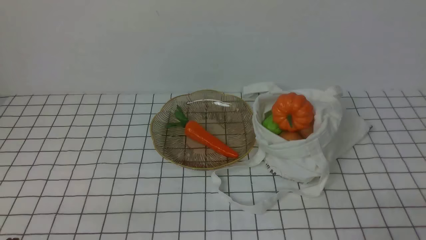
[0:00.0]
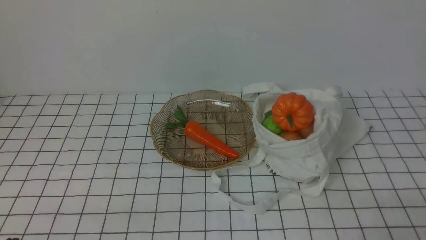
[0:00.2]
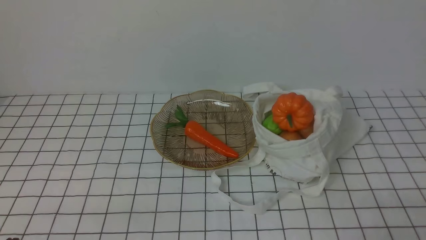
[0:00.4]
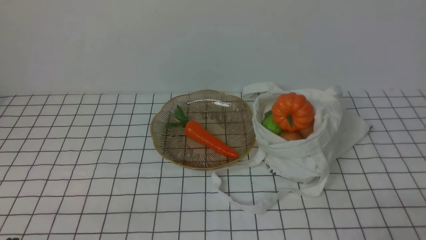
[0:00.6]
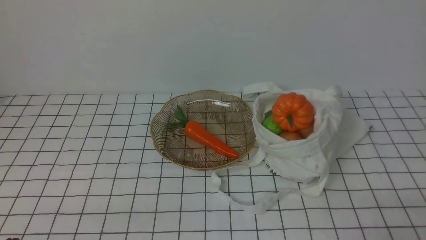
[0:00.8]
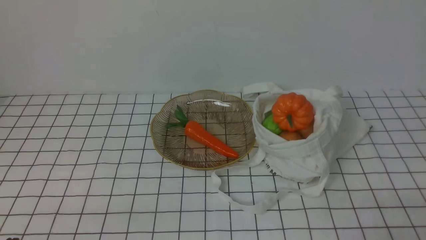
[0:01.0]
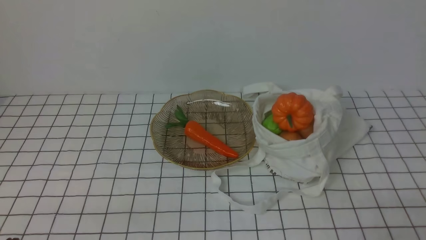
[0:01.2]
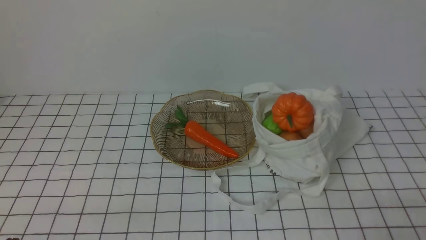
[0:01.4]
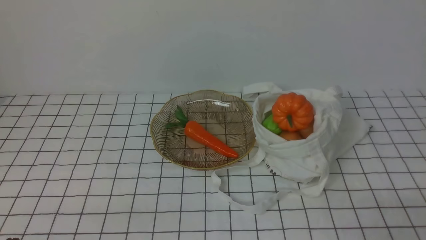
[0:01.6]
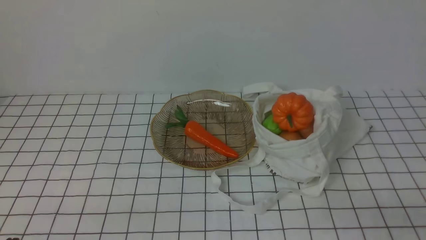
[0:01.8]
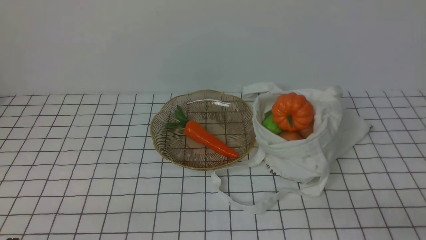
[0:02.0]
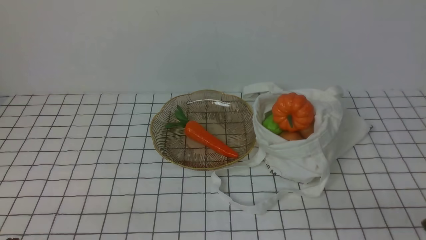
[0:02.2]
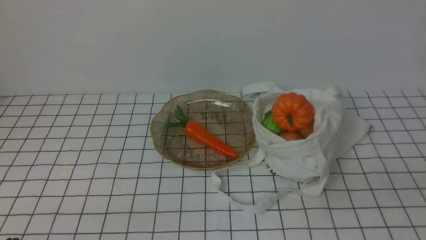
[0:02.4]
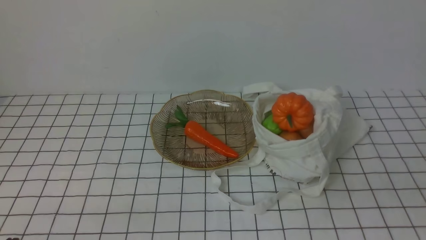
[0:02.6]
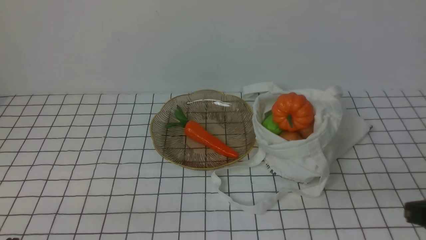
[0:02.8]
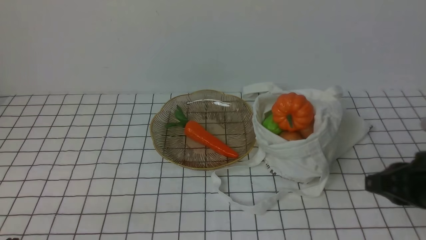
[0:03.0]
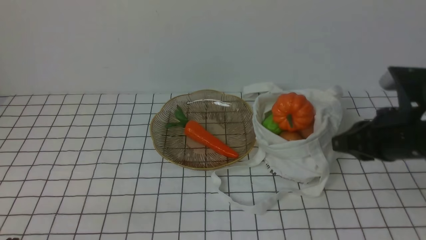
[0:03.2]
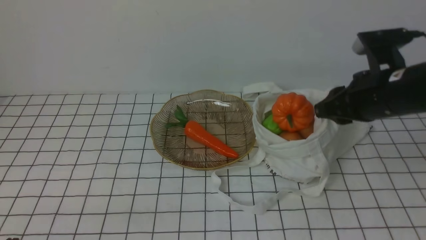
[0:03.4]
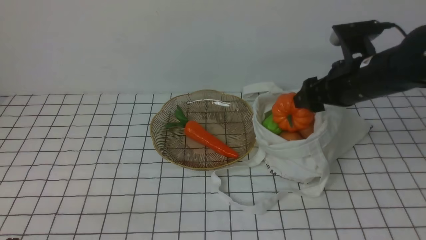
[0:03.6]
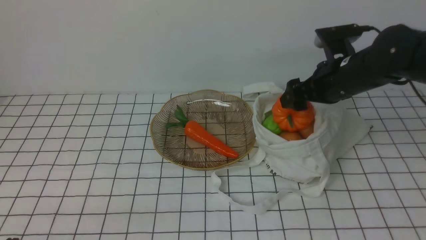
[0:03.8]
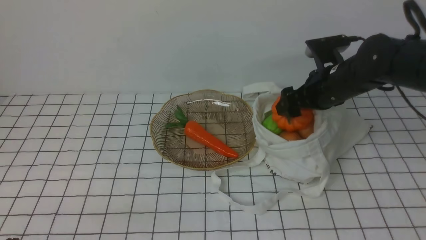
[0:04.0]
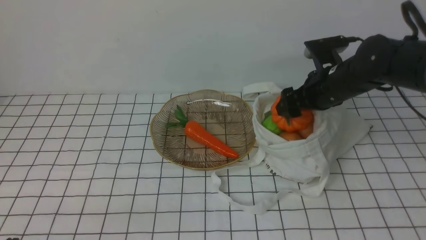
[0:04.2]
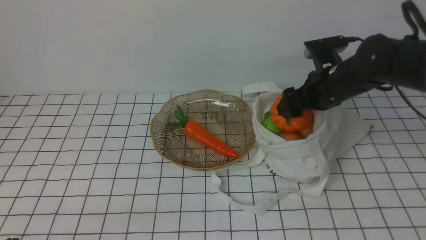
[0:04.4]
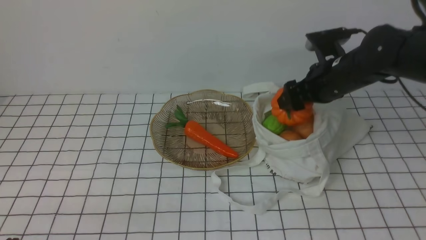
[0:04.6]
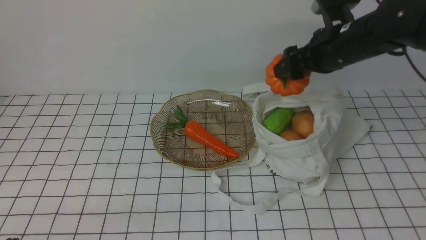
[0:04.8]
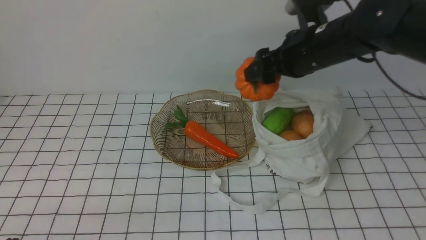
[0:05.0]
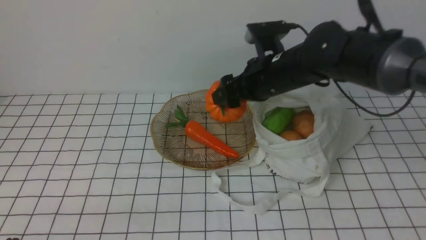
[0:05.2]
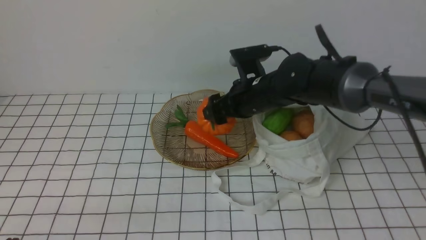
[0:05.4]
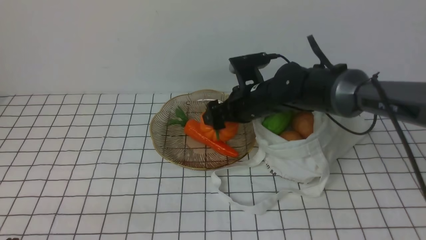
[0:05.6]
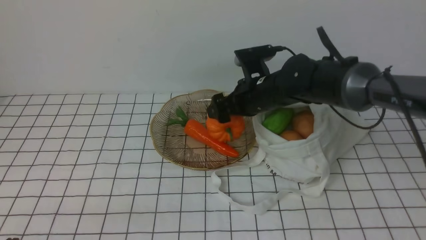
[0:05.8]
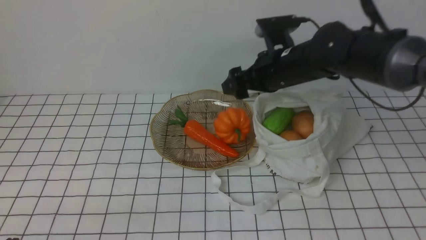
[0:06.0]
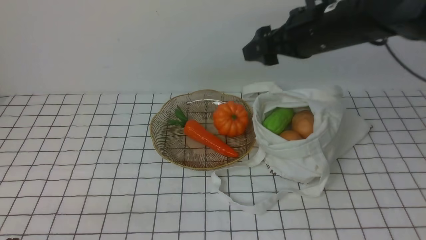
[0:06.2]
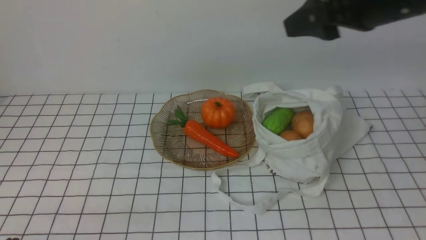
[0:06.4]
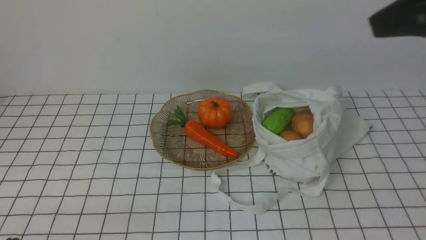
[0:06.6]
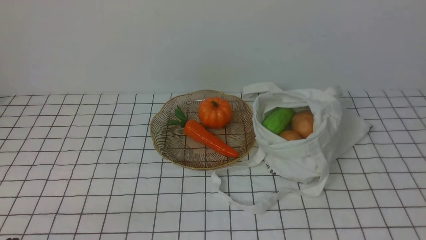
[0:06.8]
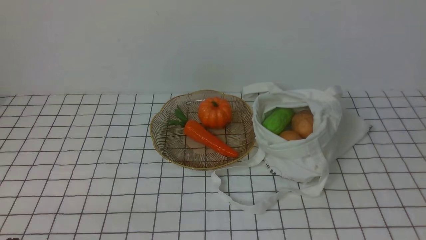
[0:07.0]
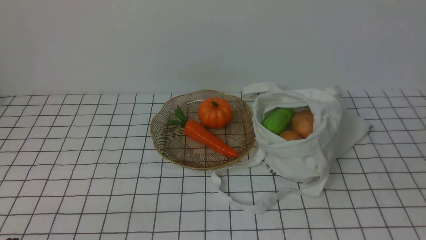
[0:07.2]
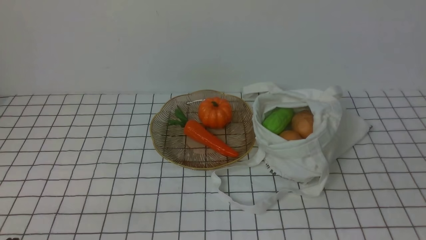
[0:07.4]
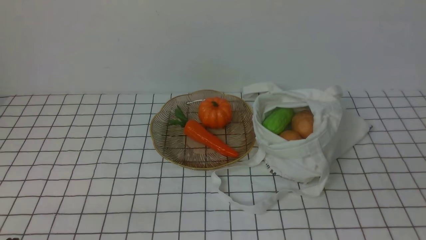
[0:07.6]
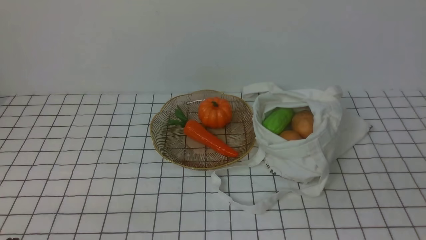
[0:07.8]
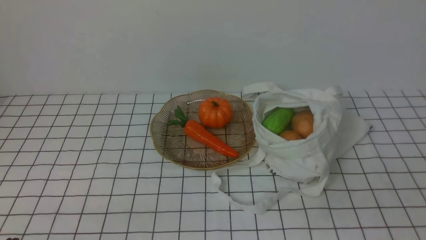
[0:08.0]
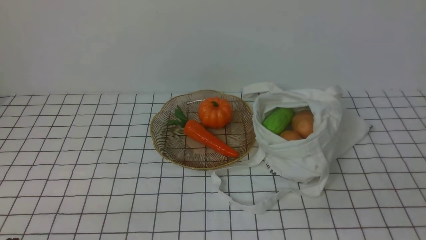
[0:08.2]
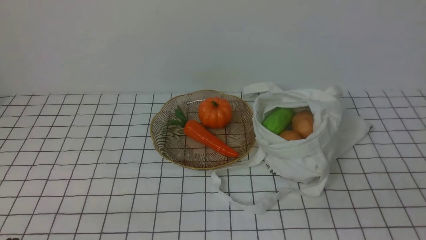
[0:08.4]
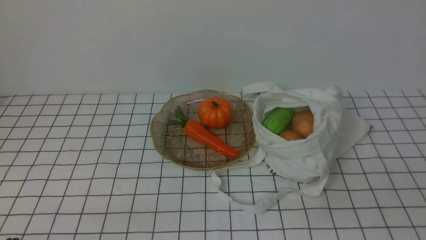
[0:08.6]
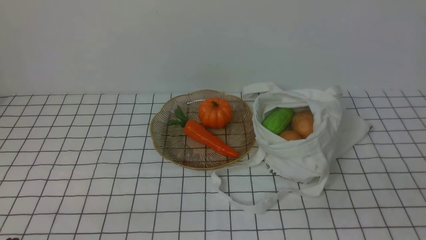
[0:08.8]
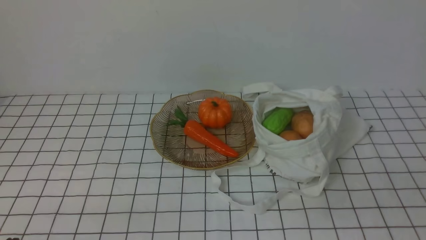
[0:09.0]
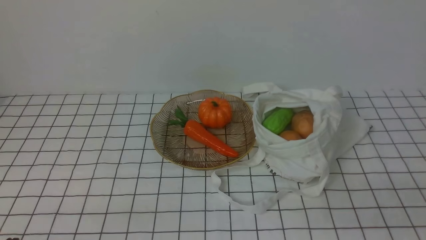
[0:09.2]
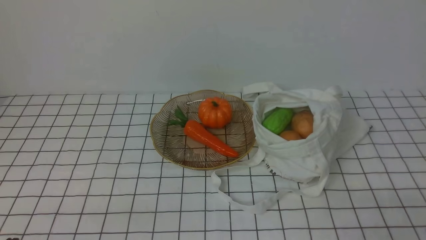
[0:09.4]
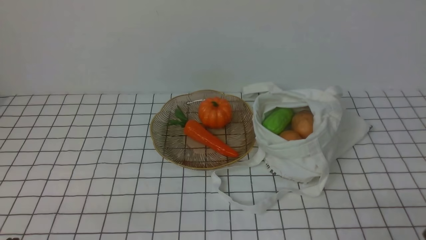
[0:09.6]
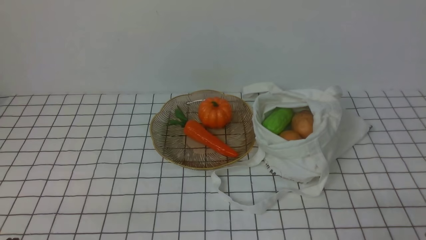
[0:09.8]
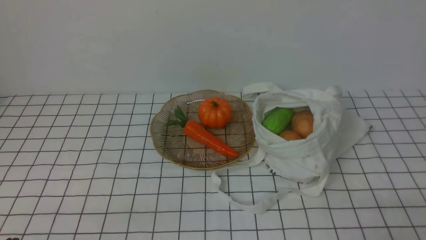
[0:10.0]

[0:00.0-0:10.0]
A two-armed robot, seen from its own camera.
Task of the whole recording: take vegetables from bag on white checkered tablecloth place on plate.
Step, 0:00.0 to 0:04.4: Grasp the pumpkin with right gripper.
Step, 0:04.6 to 0:06.0: Place the pumpkin on the plate with right gripper.
0:00.0 to 0:01.4: Neither gripper changes place.
0:02.8 to 0:04.2: The right gripper shifts roughly 25 cm forward, and opens up.
0:04.2 to 0:05.8: The right gripper shifts about 10 cm to the left.
0:05.8 to 0:07.2: The right gripper travels backward, to the right and upward by approximately 50 cm, and closes.

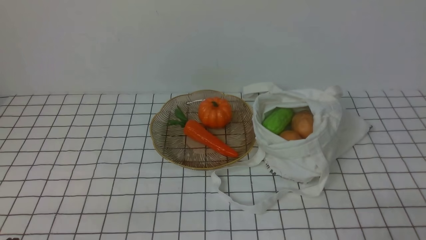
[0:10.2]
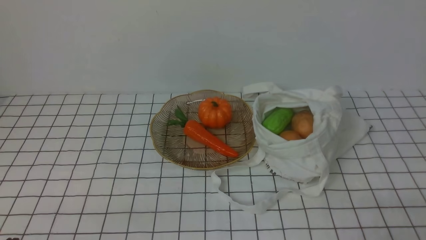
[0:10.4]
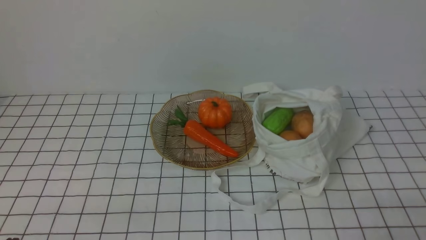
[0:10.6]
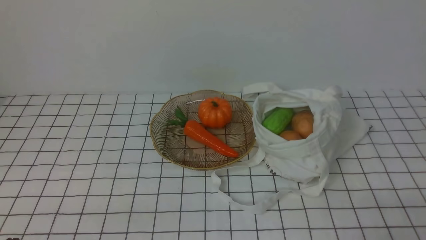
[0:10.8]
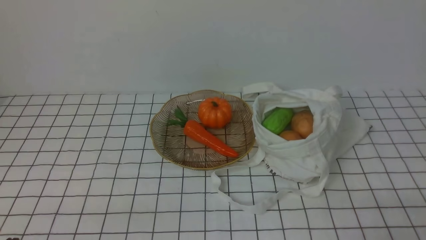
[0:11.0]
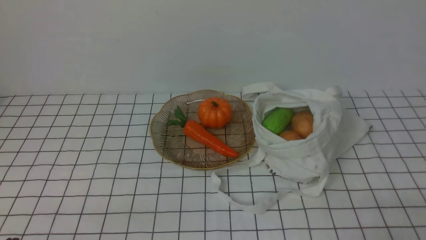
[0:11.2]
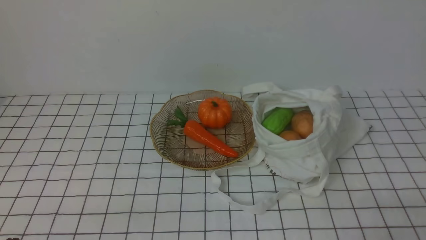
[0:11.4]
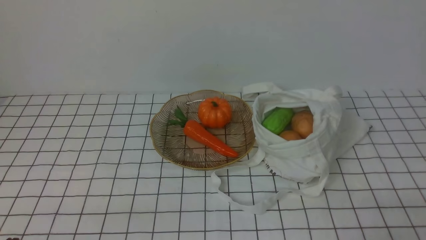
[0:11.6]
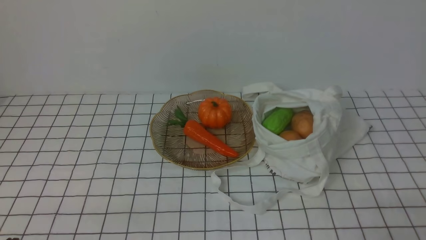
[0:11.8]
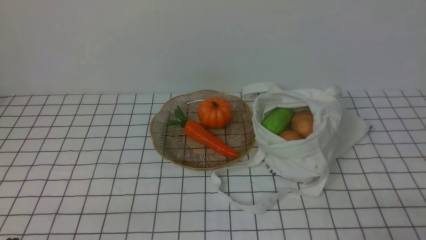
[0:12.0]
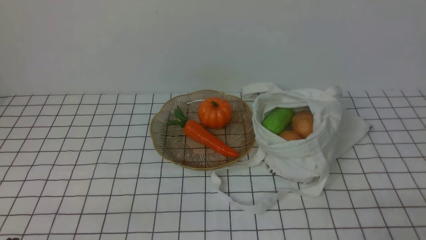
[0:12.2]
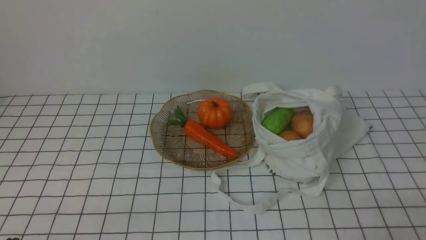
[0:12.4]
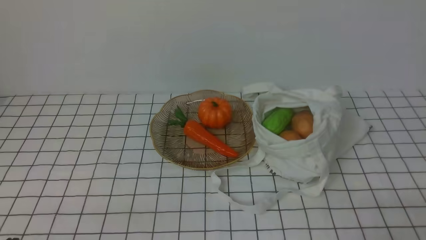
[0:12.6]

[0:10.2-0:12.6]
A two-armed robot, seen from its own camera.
Task of the whole recording: take vegetables from bag on white checkered tablecloth place on plate.
0:10.2 to 0:12.6: Both grippers stay put.

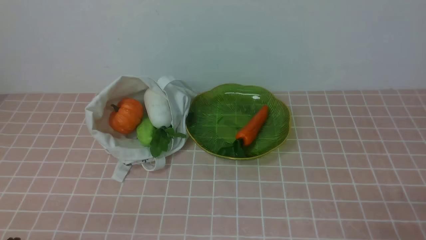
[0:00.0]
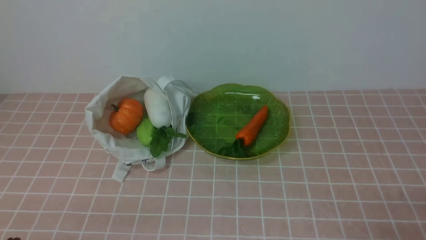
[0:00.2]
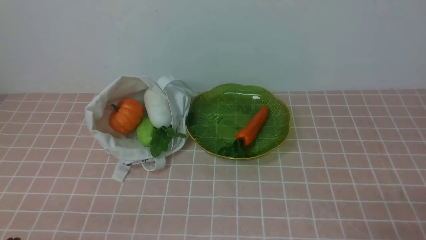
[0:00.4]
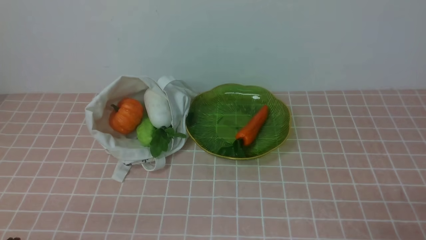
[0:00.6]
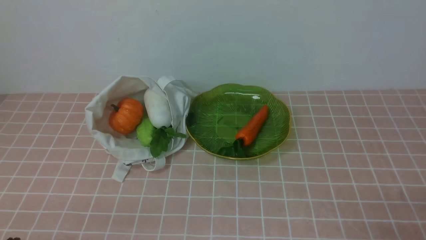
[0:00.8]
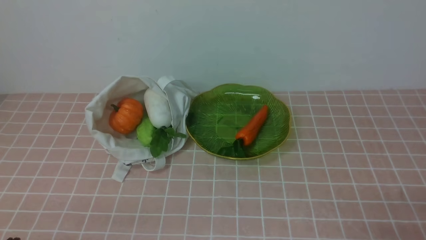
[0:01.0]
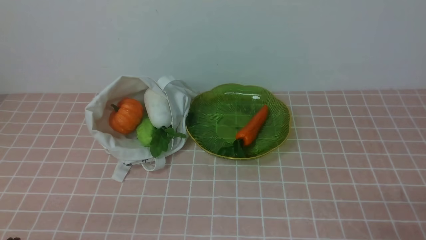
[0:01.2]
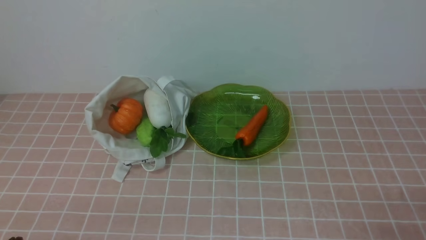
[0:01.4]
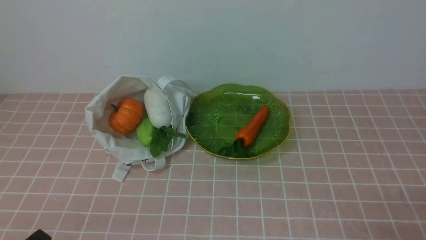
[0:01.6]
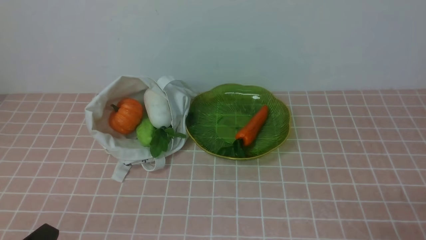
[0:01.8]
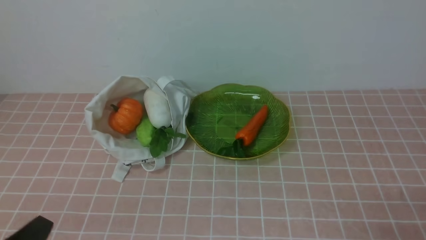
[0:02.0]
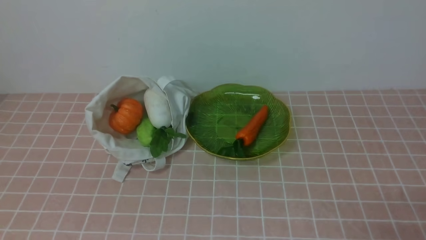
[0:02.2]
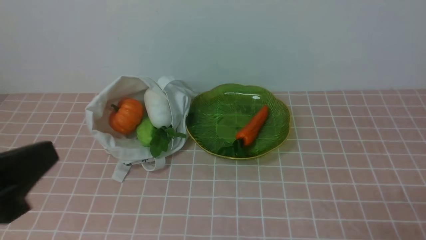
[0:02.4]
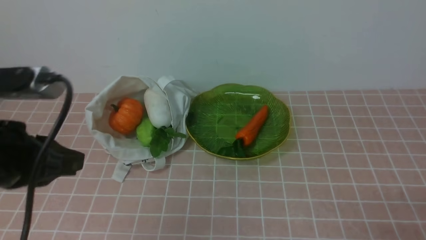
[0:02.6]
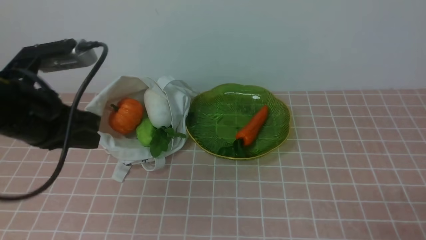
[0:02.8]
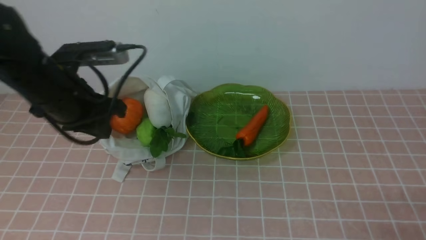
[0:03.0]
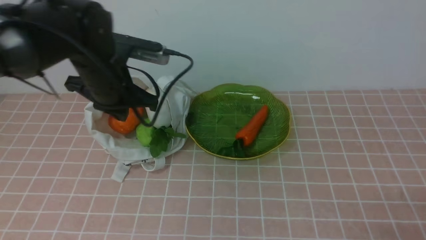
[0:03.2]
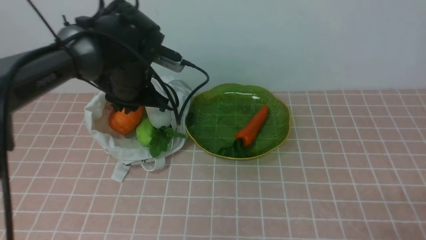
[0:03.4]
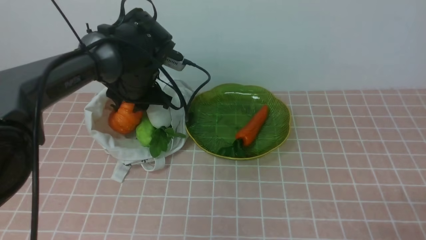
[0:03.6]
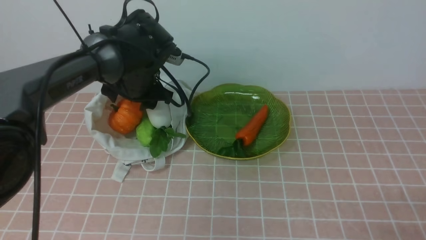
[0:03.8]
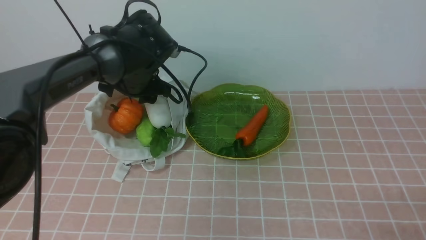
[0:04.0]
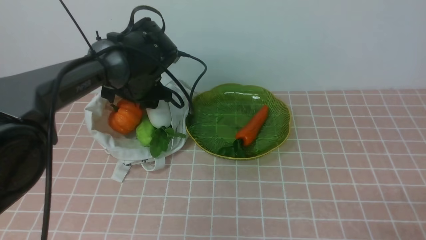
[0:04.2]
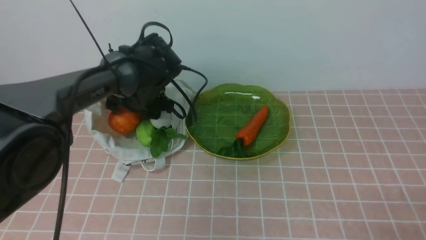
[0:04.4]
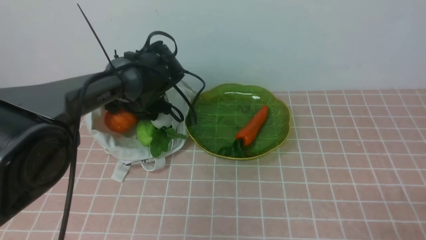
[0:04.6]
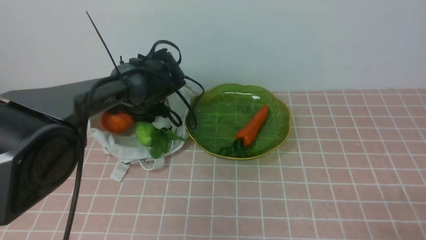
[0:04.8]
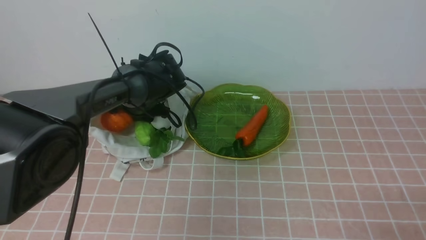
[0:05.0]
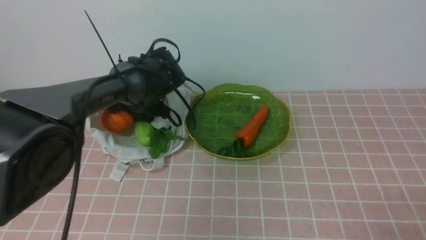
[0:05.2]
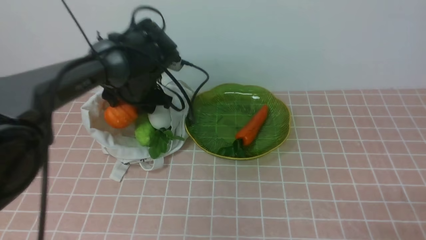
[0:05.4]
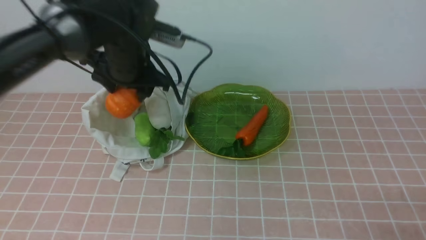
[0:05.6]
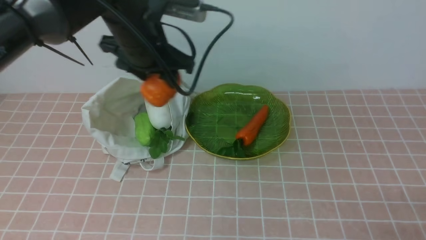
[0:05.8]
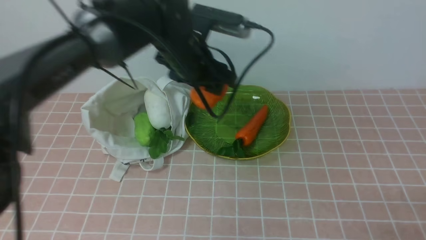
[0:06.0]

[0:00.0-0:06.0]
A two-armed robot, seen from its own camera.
Task of the whole recording: take vegetables from bag on pink coffee tablecloth place on plate.
Step, 0:00.0 to 0:04.8: Grasp the pumpkin with left gripper.
0:01.6 to 0:03.0: The left gripper goes roughly 30 cm forward and upward.
0:03.0 to 0:04.4: The left gripper goes about 15 cm forward, downward and to the right, and opens up.
0:04.4 to 0:06.0: The left gripper is displaced upward and to the right by some 10 cm.
